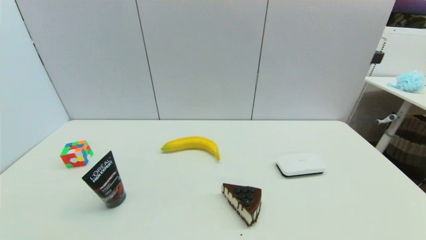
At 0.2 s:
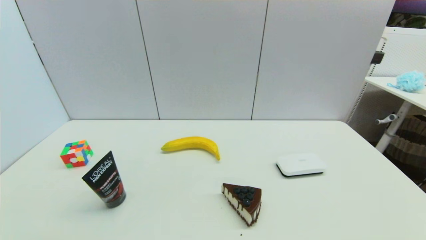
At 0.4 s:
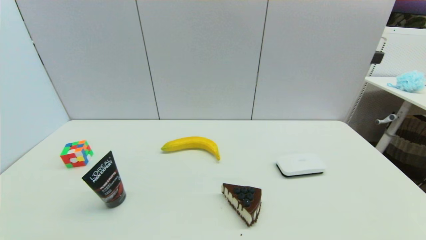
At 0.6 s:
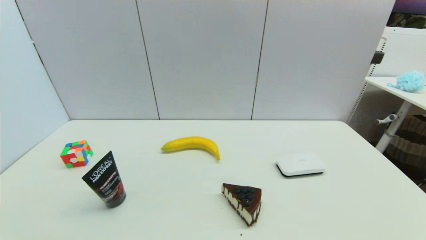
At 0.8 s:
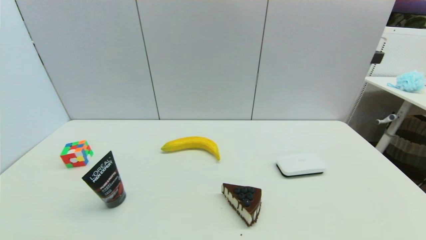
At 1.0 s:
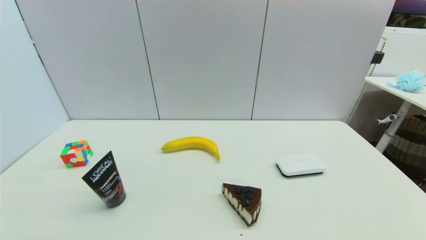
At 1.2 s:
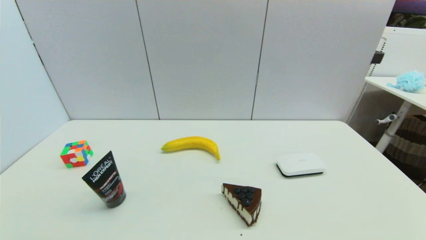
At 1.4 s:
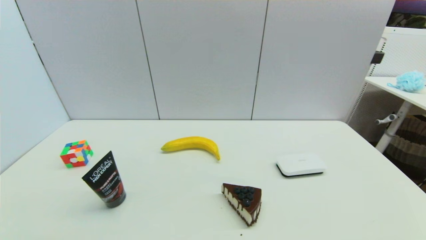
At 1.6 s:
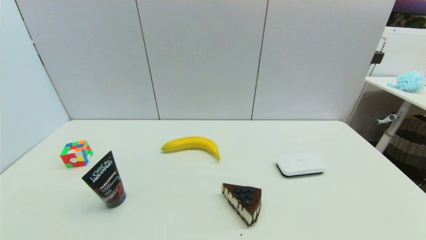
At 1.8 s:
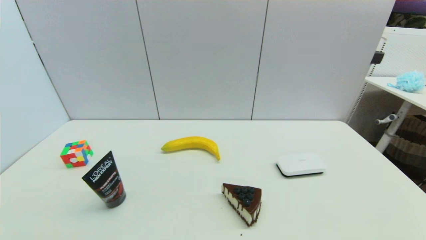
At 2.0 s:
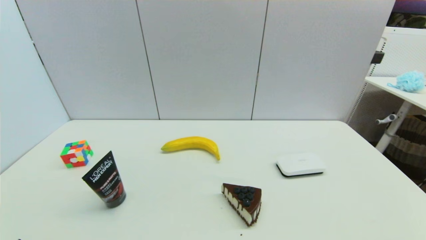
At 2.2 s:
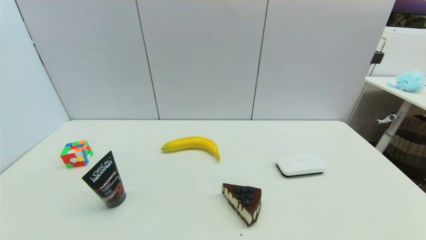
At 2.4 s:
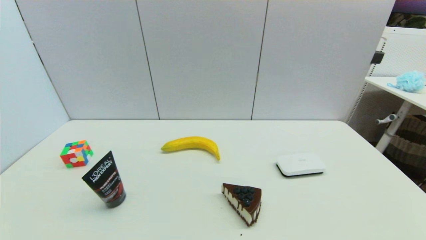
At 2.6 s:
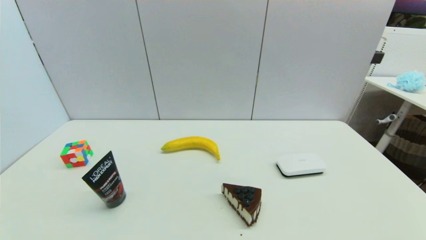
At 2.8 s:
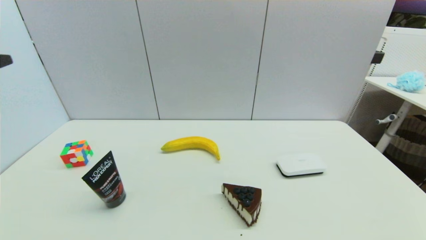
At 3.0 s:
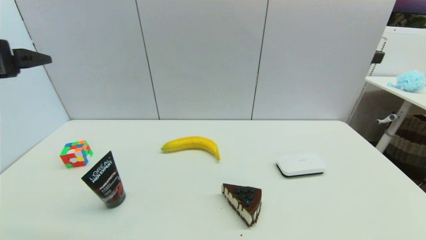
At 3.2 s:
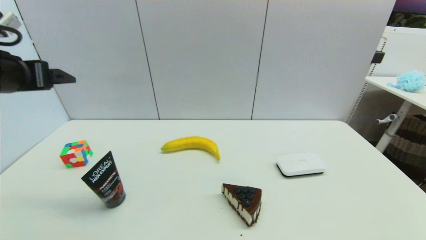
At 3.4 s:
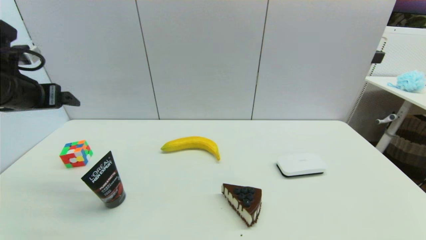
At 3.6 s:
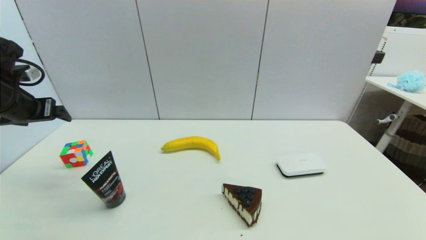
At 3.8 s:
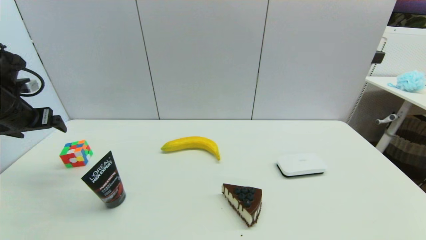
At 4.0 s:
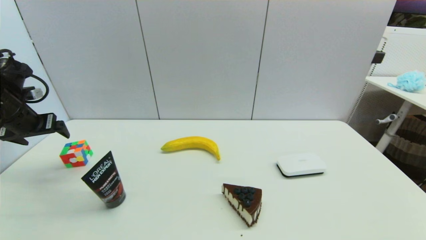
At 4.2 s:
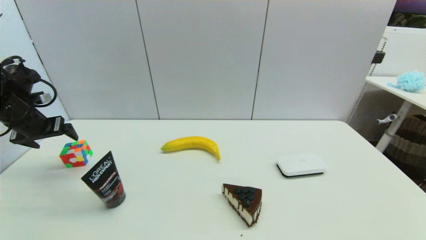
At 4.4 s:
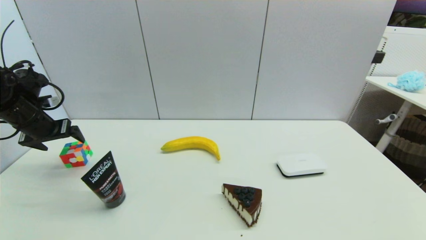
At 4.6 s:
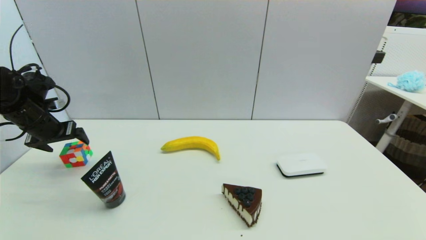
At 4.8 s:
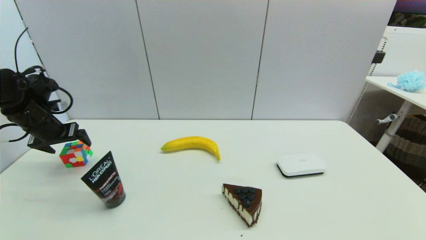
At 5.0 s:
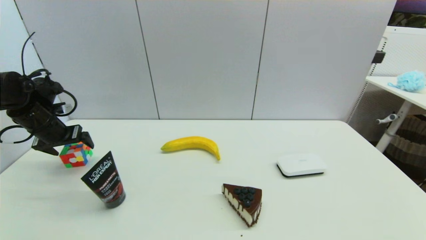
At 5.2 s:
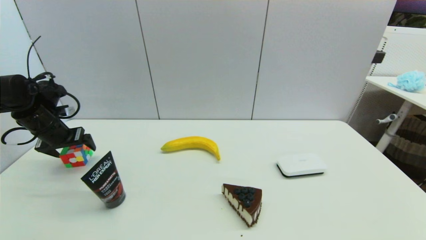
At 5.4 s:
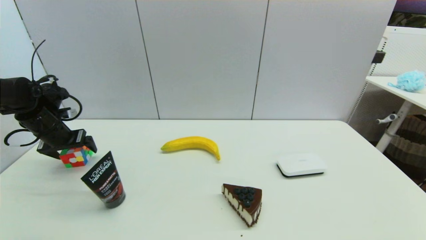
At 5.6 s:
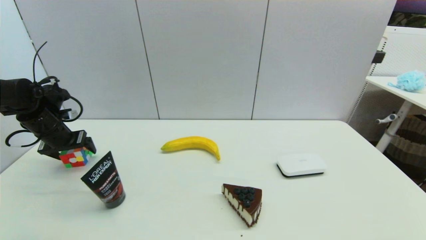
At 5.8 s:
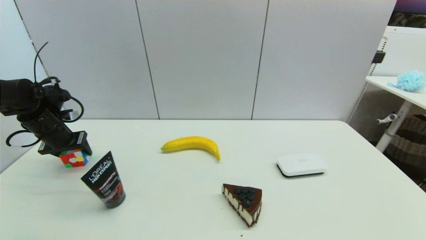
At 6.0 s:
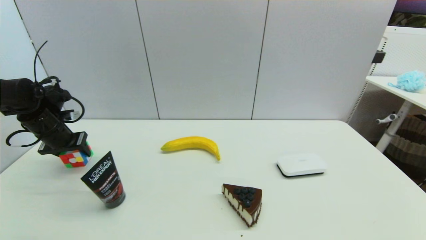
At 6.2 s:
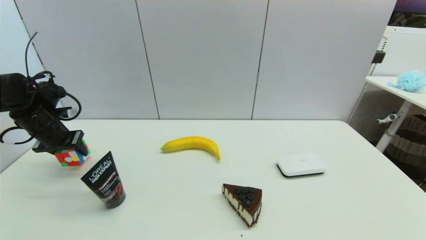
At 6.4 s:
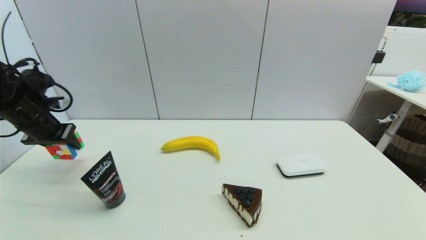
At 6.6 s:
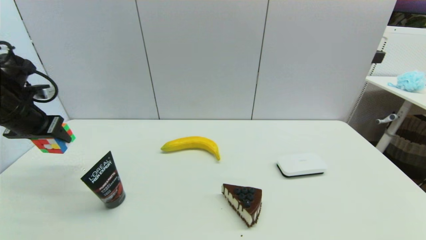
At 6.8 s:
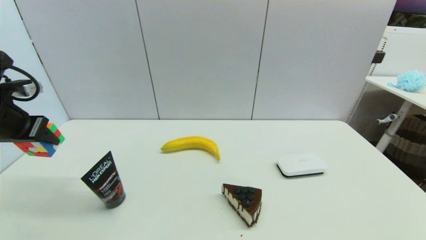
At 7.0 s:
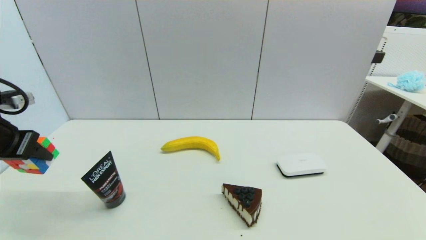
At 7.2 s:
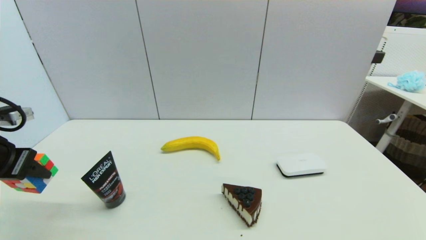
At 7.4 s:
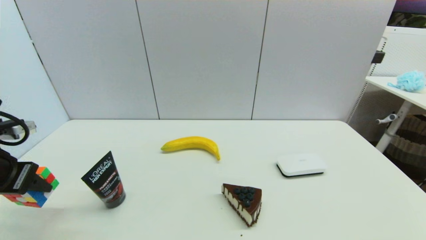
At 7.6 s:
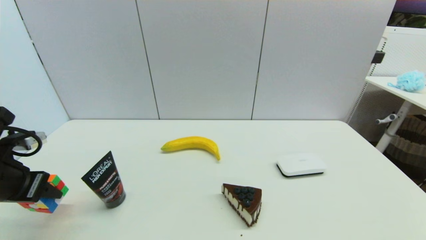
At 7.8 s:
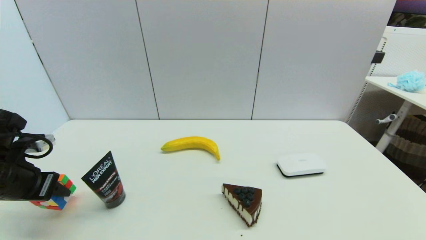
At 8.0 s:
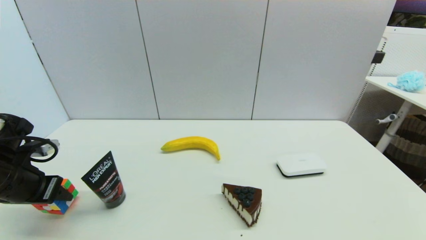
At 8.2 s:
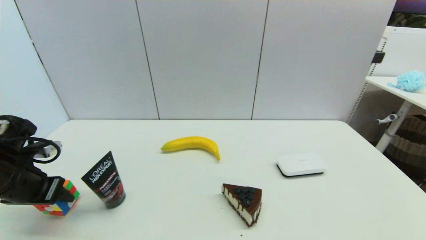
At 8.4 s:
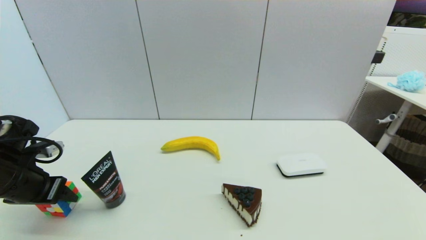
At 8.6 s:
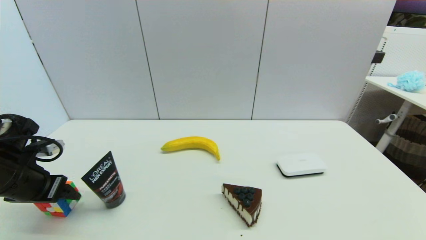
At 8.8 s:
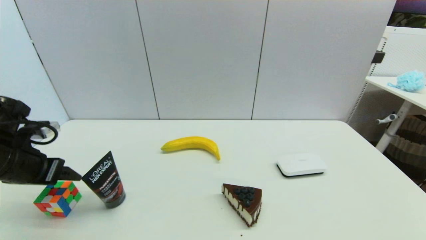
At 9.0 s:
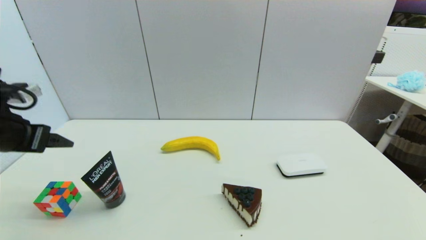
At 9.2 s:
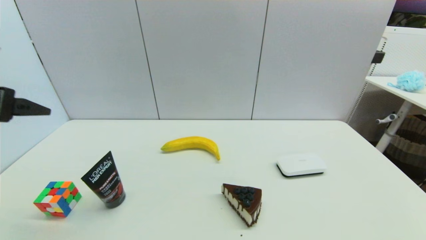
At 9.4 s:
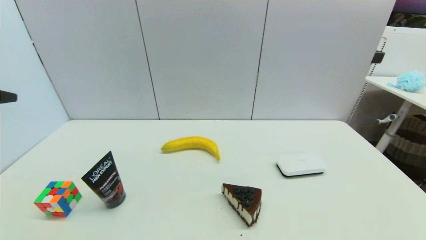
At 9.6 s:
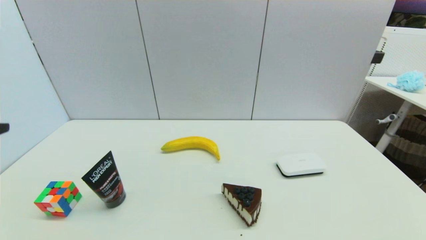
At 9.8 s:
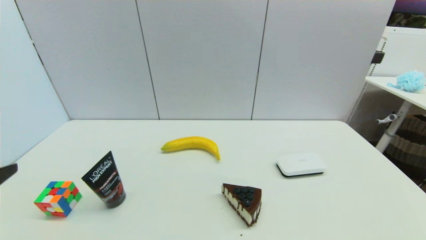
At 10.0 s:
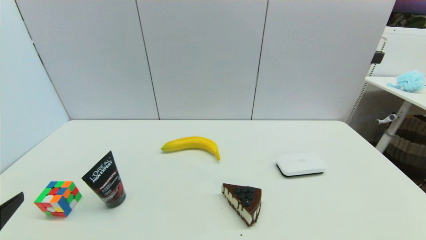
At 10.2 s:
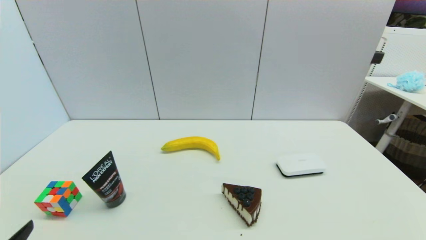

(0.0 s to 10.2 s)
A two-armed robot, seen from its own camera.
Step, 2.0 s - 6.0 s: Grasp the magic cube with left gripper.
Step, 6.2 s - 8.8 s: Place the magic cube on the table with left gripper.
0.0 s - 1.4 s: Both grippers stay about where they are.
1.4 s - 3.0 s: The left gripper goes some 35 cm upward and forward.
3.0 s - 4.4 s: The left gripper travels downward, forward and to the left by some 25 cm.
4.4 s - 5.8 s: The left gripper closes.
5.8 s - 7.2 s: The left gripper travels backward and upward by approximately 20 cm.
7.2 s - 8.8 s: The left gripper changes place by about 5 cm, and opens up.
8.8 s - 10.2 s: The left gripper heads backward, covering roughly 20 cm.

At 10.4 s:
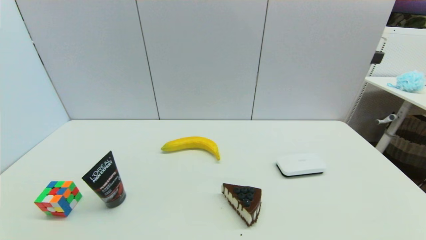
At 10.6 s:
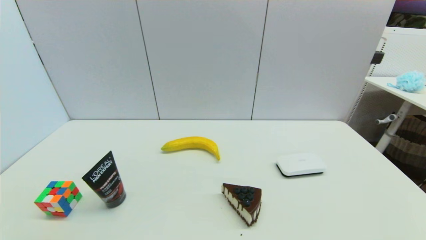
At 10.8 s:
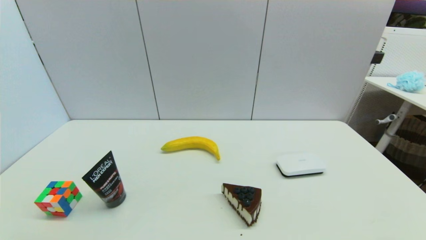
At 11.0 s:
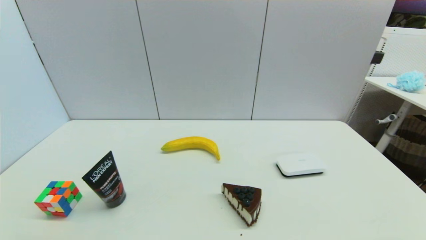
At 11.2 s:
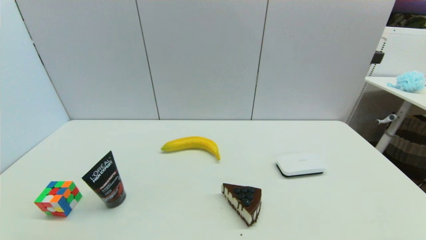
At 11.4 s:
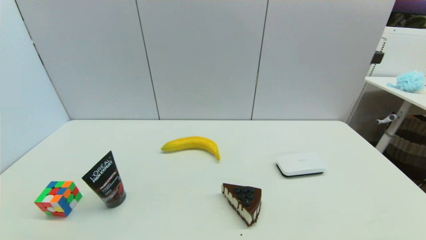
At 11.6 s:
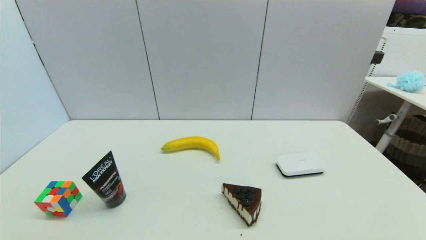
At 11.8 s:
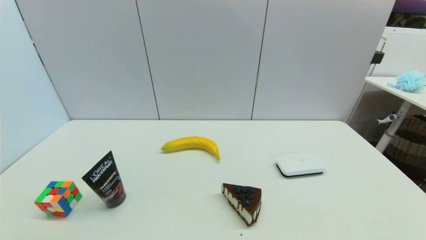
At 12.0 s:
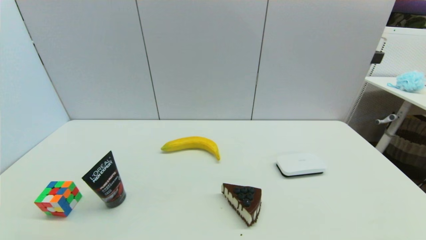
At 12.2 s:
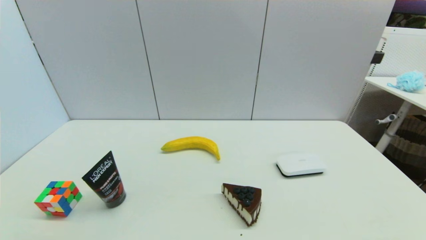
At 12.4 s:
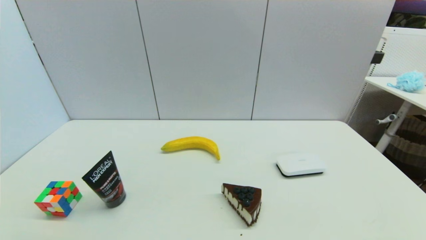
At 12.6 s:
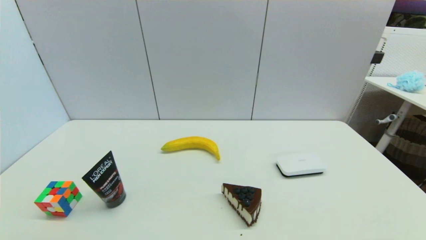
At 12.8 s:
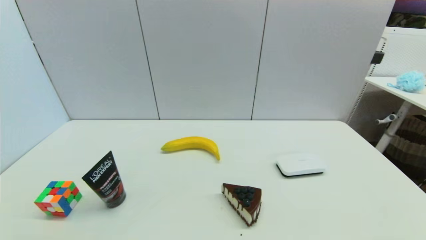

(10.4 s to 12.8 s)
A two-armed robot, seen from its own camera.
11.6 s - 12.8 s: The two grippers keep their place.

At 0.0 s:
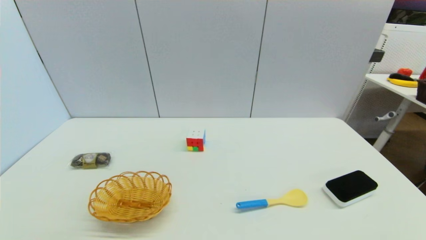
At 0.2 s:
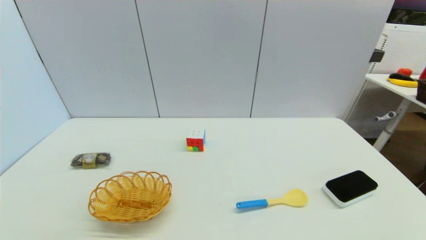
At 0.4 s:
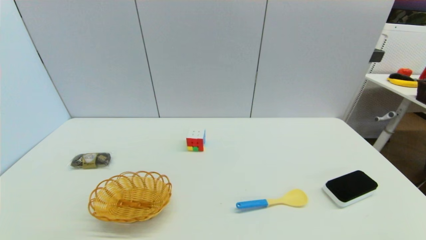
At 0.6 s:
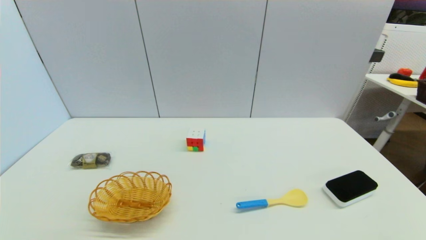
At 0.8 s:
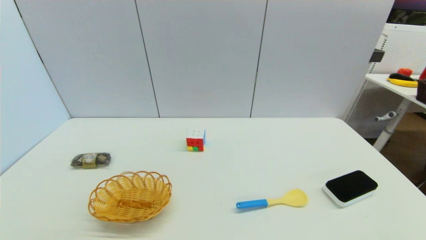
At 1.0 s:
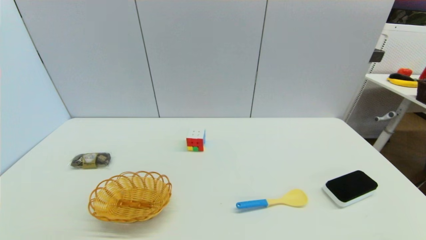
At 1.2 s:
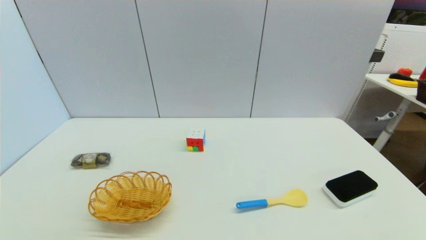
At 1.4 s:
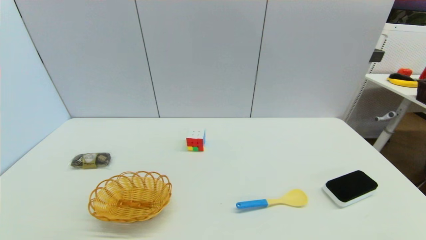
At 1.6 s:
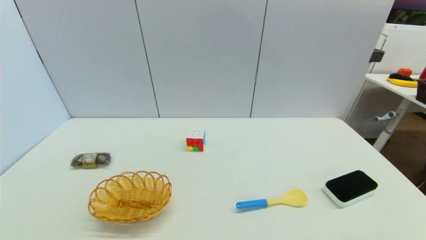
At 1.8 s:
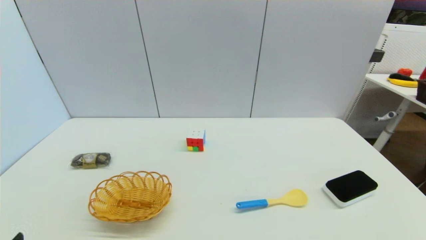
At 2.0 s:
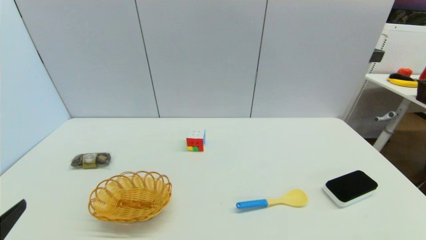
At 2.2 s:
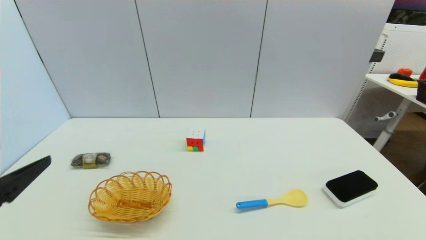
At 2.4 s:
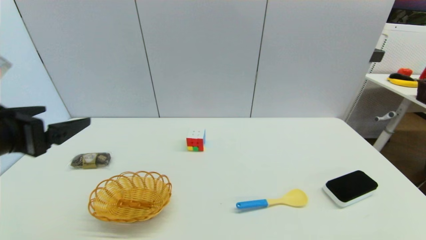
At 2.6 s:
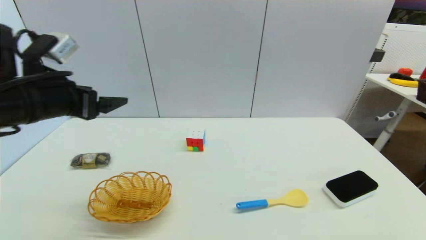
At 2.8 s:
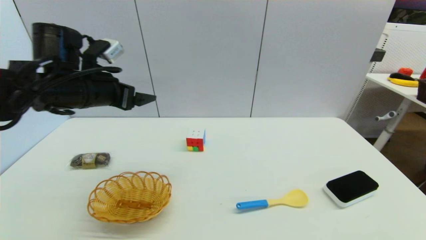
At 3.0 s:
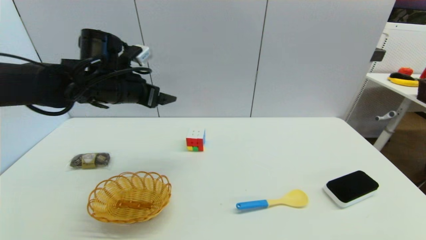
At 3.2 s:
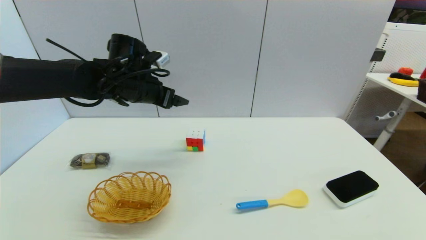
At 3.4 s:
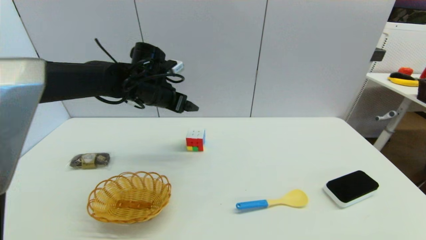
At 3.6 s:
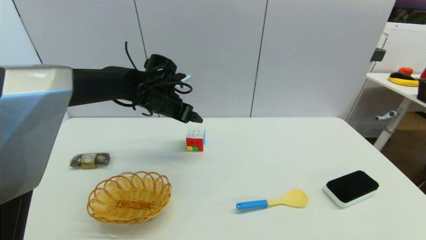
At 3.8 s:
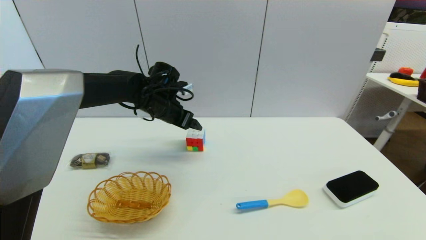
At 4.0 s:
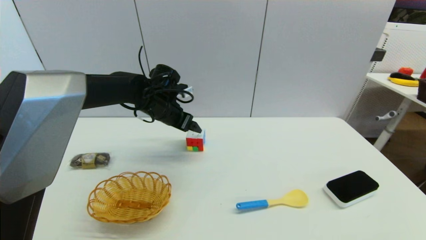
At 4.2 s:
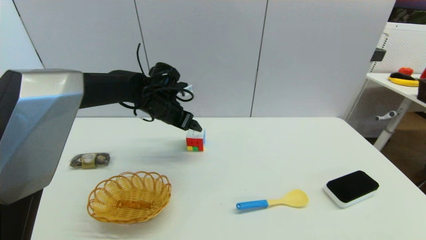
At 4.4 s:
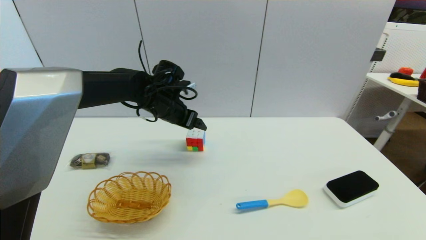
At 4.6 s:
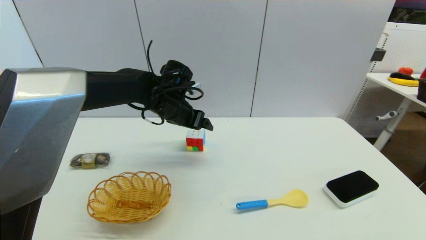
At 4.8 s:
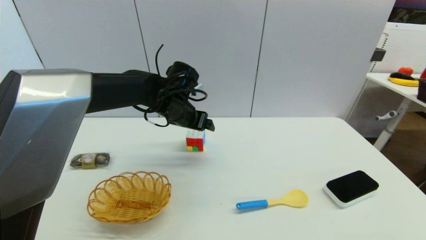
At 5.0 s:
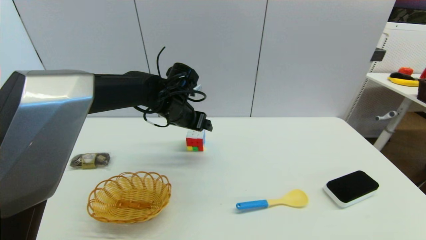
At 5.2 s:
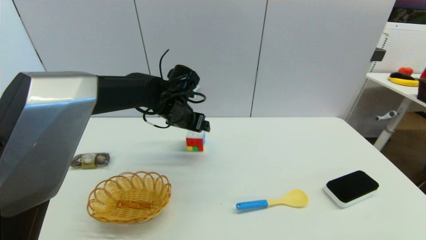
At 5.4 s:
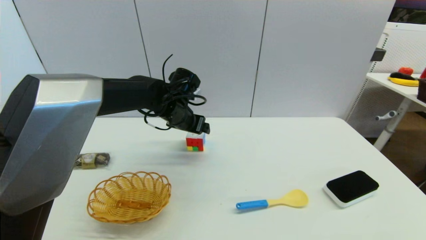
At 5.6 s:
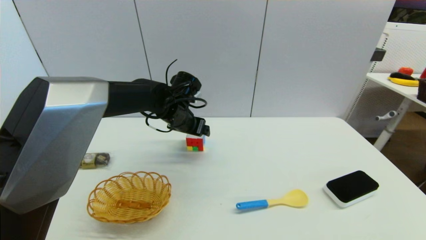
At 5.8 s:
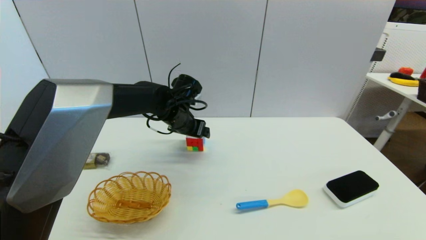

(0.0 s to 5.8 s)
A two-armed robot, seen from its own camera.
0.0 s - 1.4 s: Neither gripper changes place.
1.4 s - 2.8 s: The left gripper travels forward and upward by some 40 cm.
2.8 s - 4.4 s: The left gripper goes about 15 cm to the right, forward and downward.
4.4 s - 5.8 s: The grippers move only a little.
